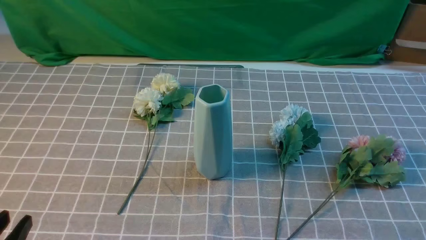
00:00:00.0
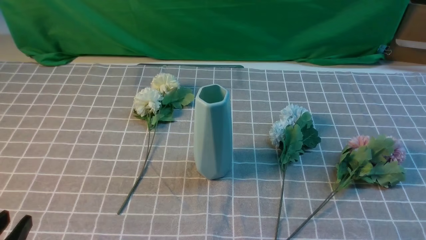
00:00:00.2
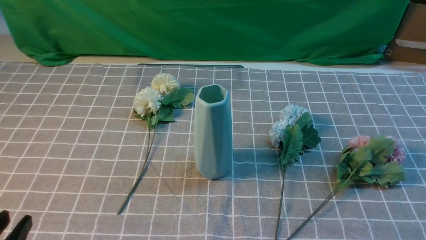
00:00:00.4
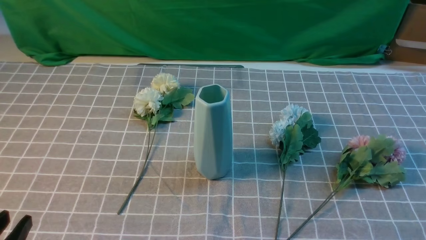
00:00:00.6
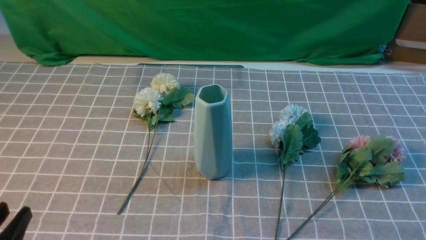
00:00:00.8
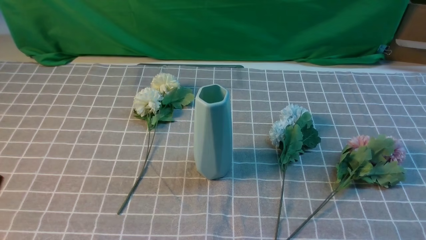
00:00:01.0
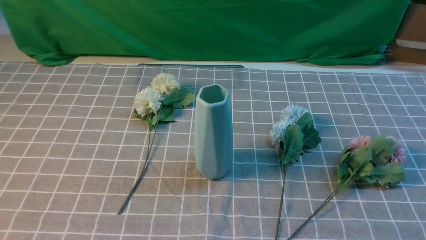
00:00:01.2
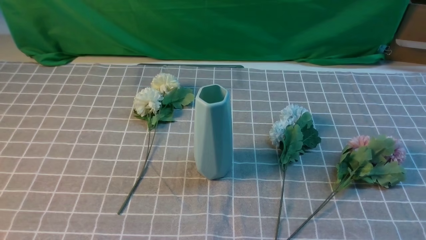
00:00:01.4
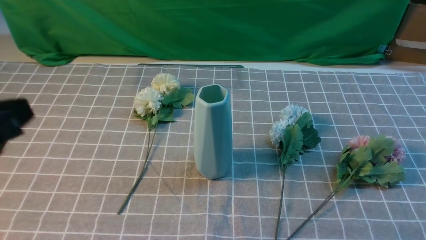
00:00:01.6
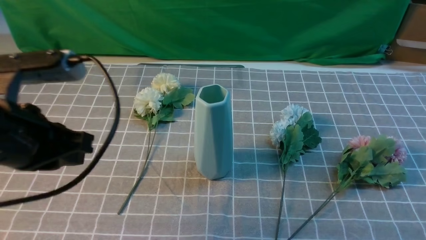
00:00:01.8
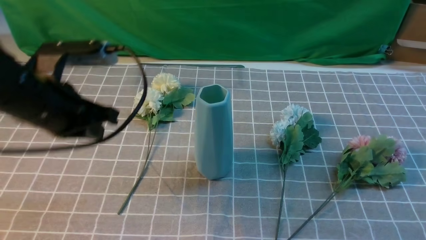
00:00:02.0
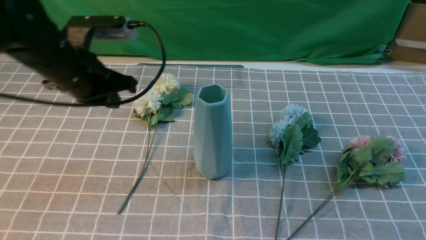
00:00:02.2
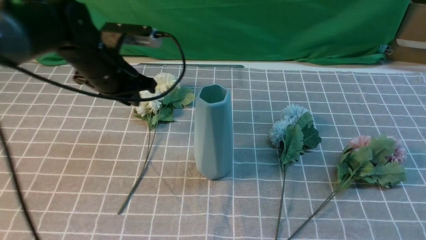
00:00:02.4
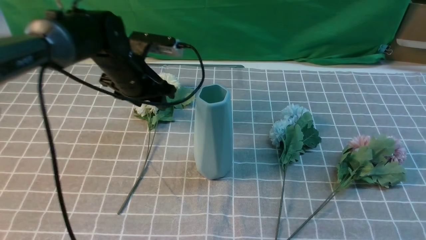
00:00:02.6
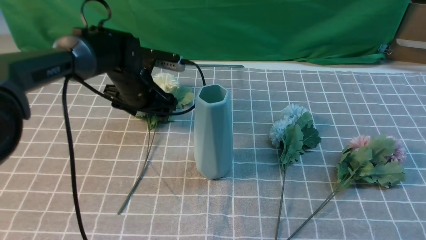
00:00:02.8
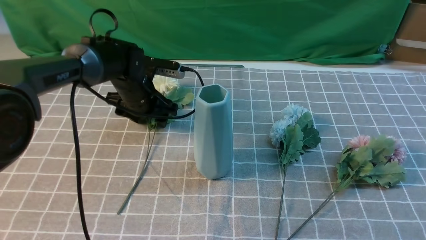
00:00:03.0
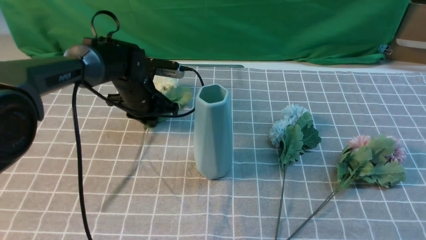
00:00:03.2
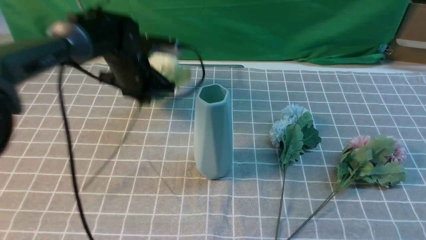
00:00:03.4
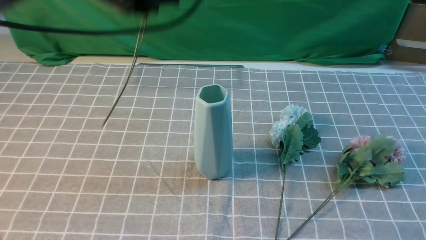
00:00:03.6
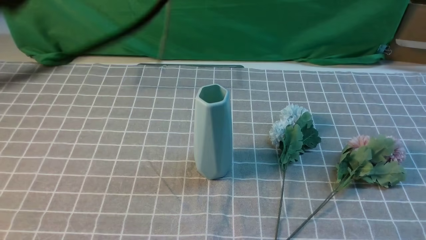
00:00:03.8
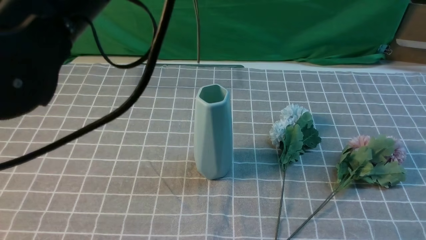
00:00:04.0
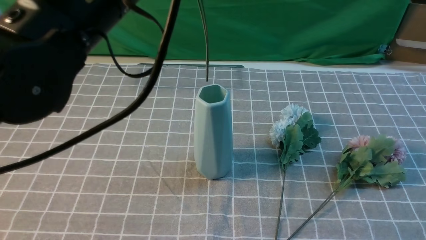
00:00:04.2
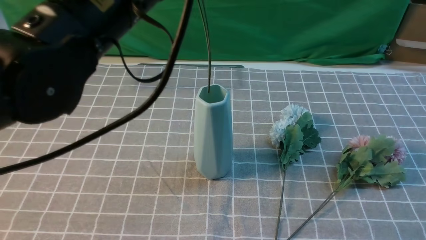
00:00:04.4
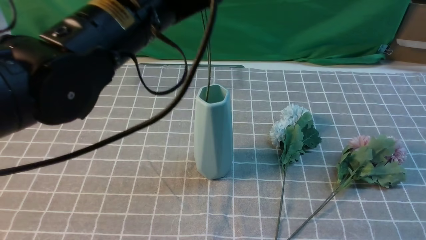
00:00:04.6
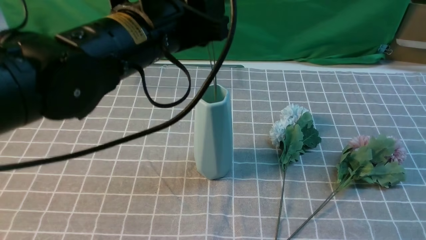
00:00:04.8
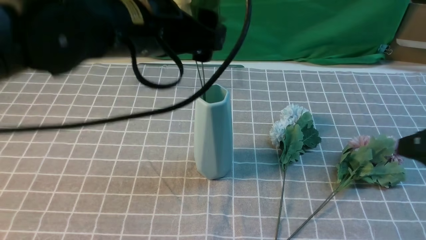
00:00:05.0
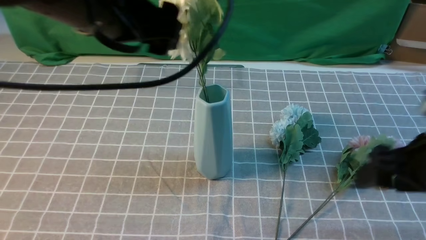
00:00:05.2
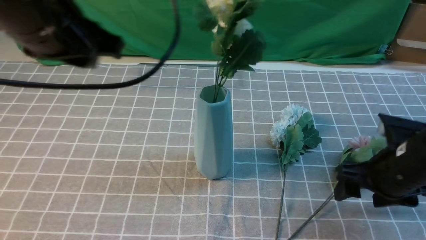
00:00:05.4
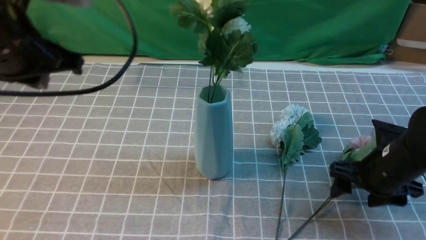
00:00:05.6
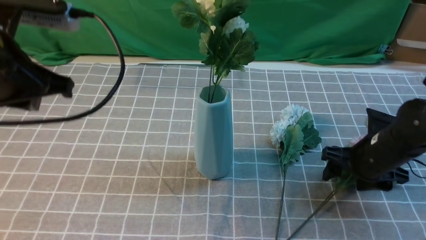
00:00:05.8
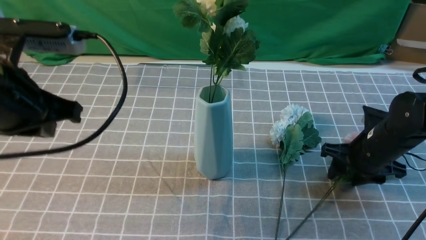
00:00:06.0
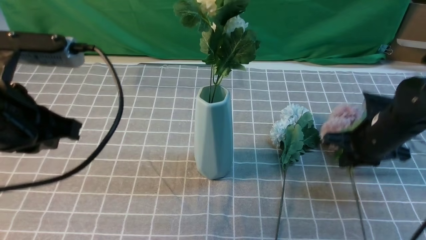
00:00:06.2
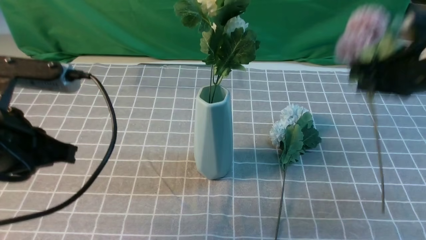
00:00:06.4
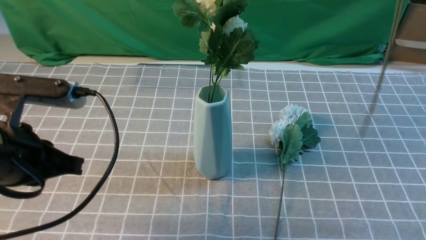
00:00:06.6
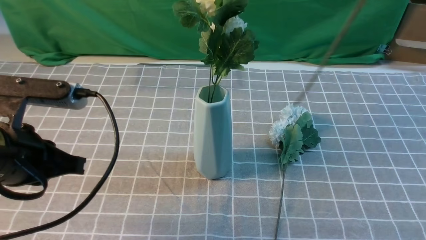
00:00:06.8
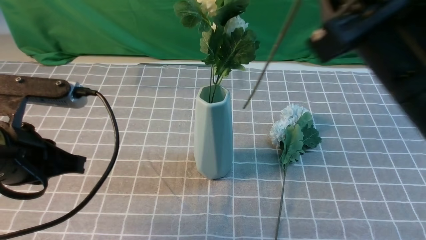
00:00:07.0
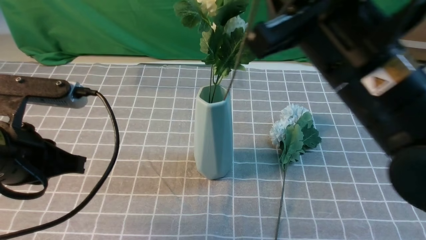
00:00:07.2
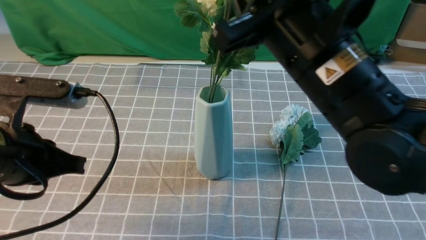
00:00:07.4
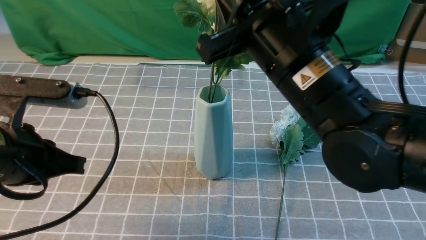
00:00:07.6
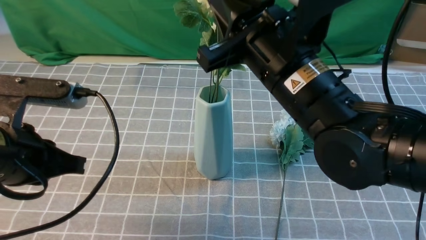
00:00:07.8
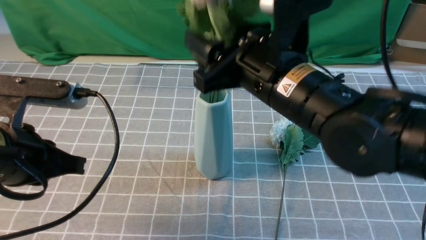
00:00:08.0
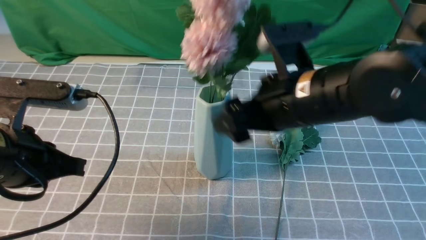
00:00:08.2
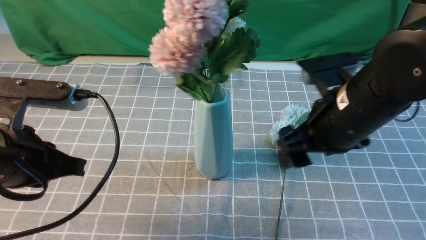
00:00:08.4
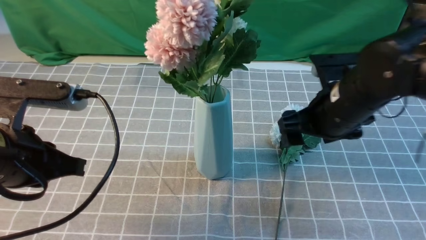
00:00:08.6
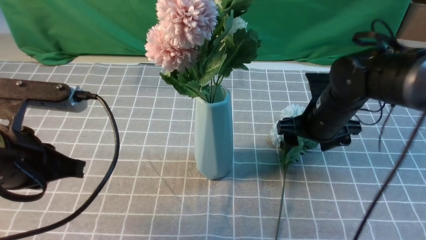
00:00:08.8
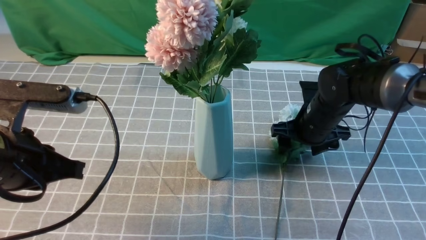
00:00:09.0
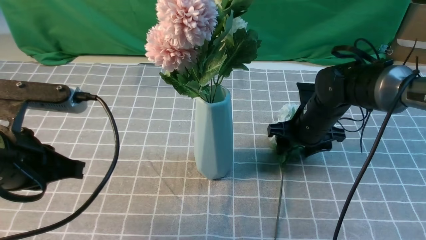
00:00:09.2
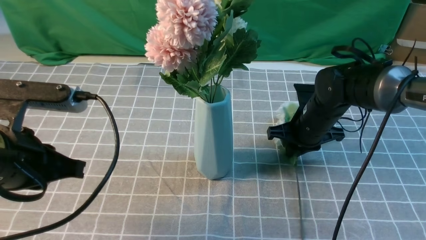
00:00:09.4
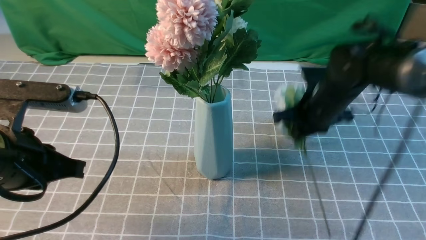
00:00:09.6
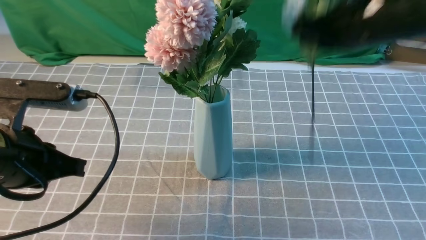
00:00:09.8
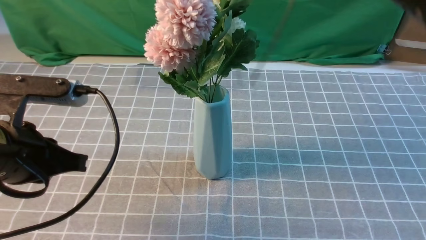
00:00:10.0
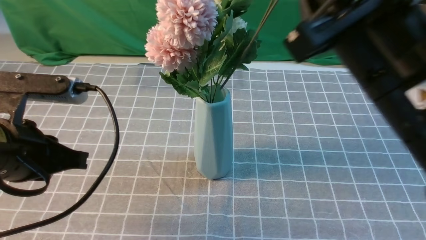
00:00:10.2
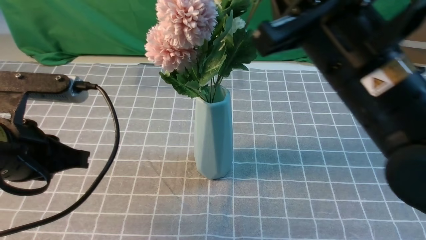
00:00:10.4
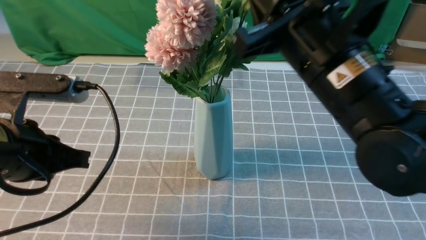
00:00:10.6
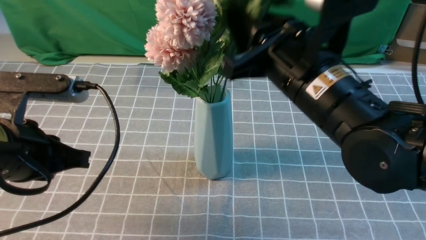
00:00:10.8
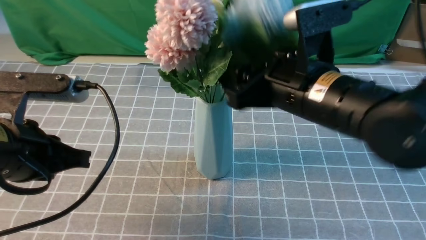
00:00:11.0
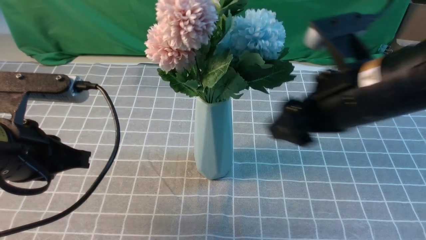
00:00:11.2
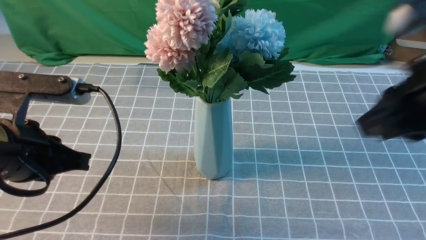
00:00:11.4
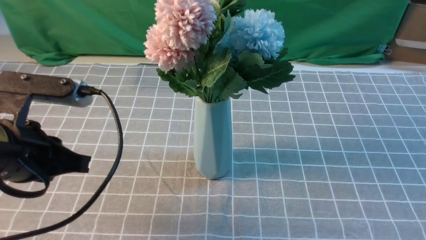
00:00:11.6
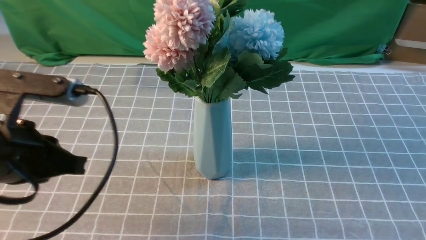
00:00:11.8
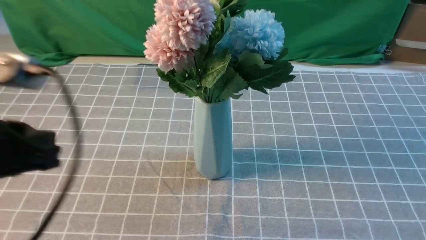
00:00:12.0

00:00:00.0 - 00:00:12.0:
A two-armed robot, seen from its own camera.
Task of the whole recording: insert the flowers into the vase on the table with the grey tablecloth.
Step, 00:00:00.0 - 00:00:03.0: use the left arm to grab a bunch of fresh flowers.
Step, 00:00:03.2 - 00:00:05.0: use the left arm to insert the flowers into the vase.
Step, 00:00:05.4 - 00:00:06.0: use the right arm to grab a bunch of fresh flowers.
Step, 00:00:06.2 - 00:00:08.0: use the right arm to insert the flowers into the vase.
Step, 00:00:08.2 - 00:00:09.4: use the right arm to grab a bunch of fresh flowers.
Step, 00:00:09.6 - 00:00:11.0: use the right arm to insert the flowers into the vase.
00:00:00.0 - 00:00:01.6: The left gripper moves upward and forward, about 20 cm, and closes its fingers.
00:00:01.6 - 00:00:03.0: The right gripper shifts approximately 15 cm upward and forward. Meanwhile the left gripper travels forward and downward by approximately 35 cm, and opens.
00:00:03.0 - 00:00:04.4: The left gripper moves upward and backward, about 30 cm, and closes up.
00:00:04.4 - 00:00:06.0: The left gripper is displaced to the left and downward by roughly 15 cm, and opens and closes again; the right gripper goes some 25 cm forward and downward, and opens, then closes once more.
00:00:06.0 - 00:00:07.6: The right gripper shifts approximately 25 cm upward, to the left and backward, and closes, while the left gripper heads downward, covering some 5 cm.
00:00:07.6 - 00:00:09.0: The right gripper is displaced downward, forward and to the right by some 25 cm, and opens up.
00:00:09.0 - 00:00:10.4: The right gripper is displaced upward and backward by about 25 cm, and closes.
00:00:10.4 - 00:00:12.0: The right gripper is displaced backward and to the right by approximately 25 cm, and opens, then closes once more. Meanwhile the left gripper is displaced backward and upward by approximately 10 cm.
